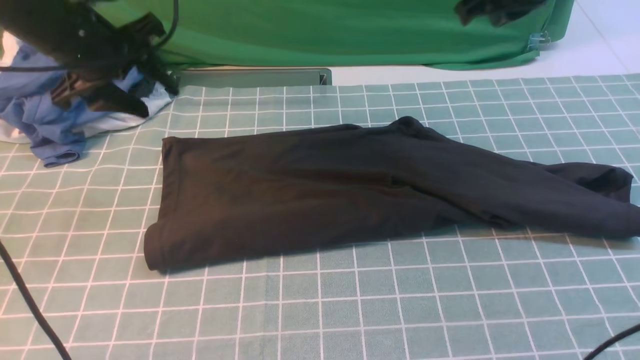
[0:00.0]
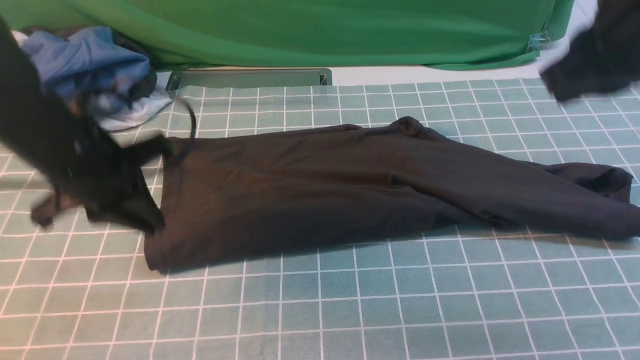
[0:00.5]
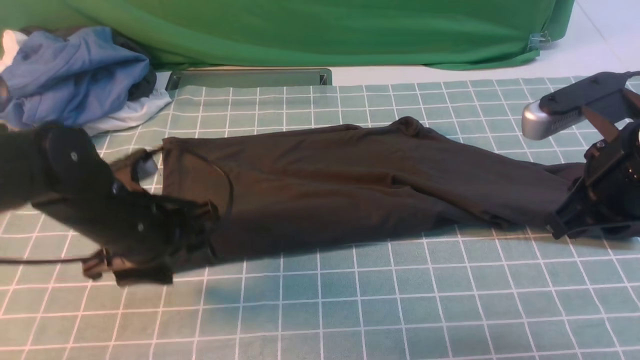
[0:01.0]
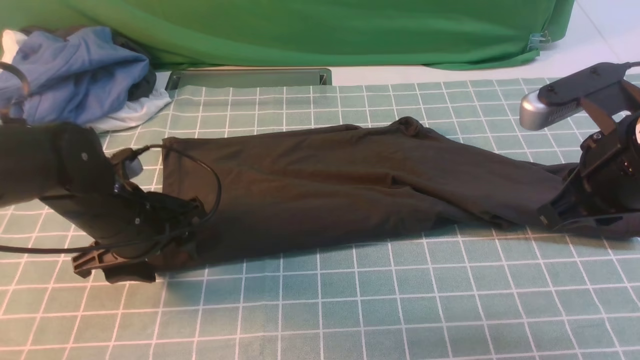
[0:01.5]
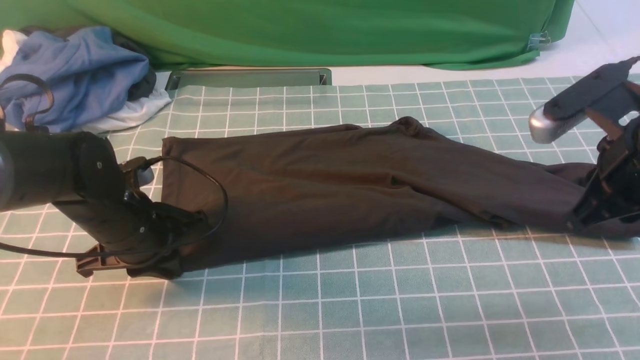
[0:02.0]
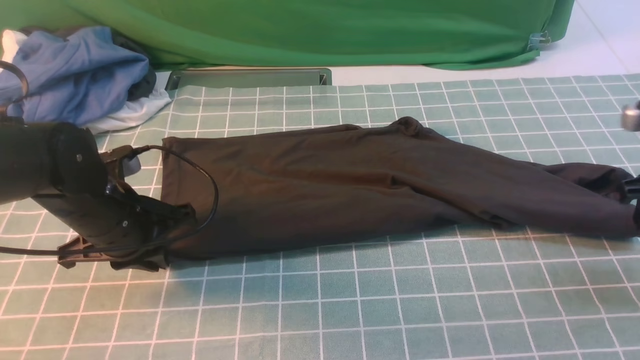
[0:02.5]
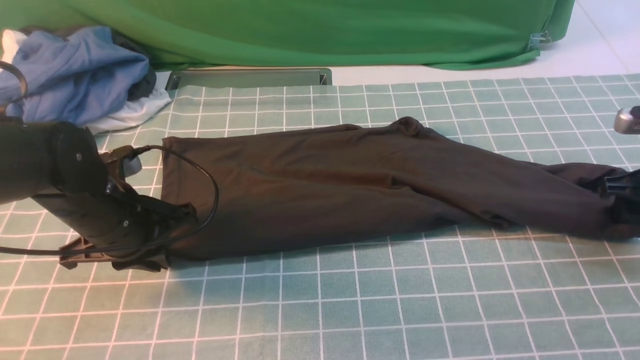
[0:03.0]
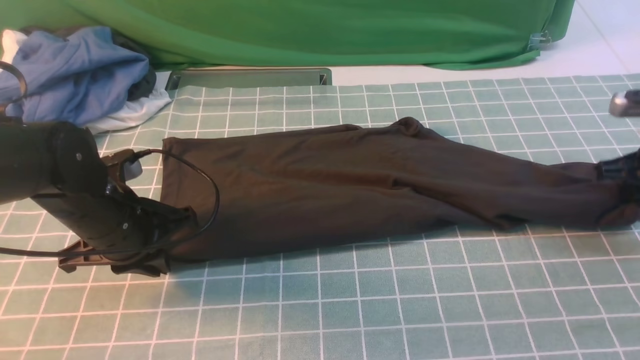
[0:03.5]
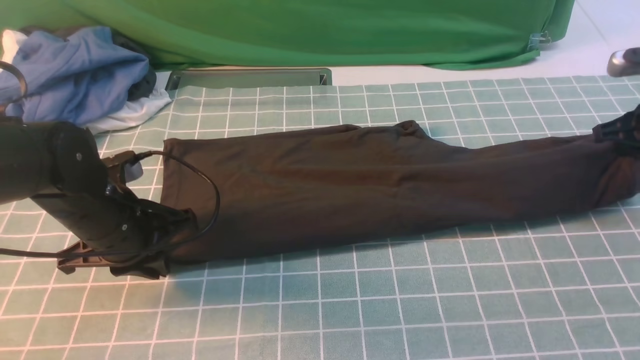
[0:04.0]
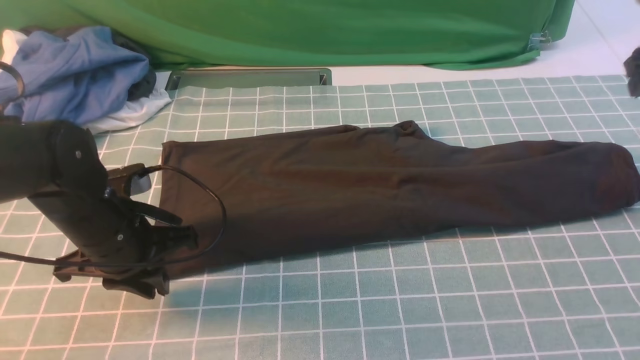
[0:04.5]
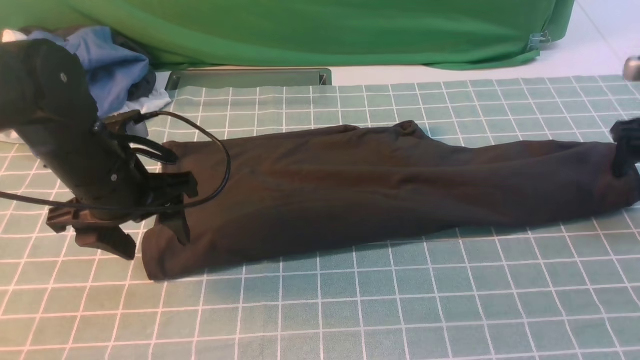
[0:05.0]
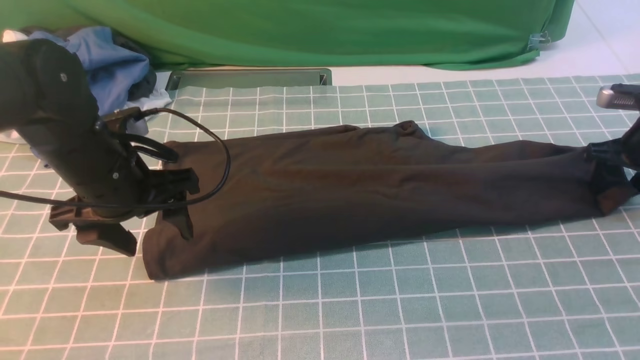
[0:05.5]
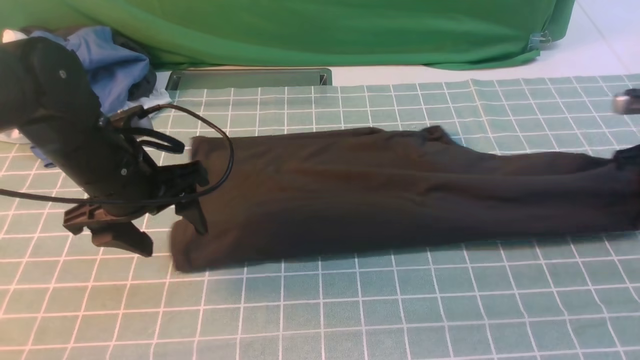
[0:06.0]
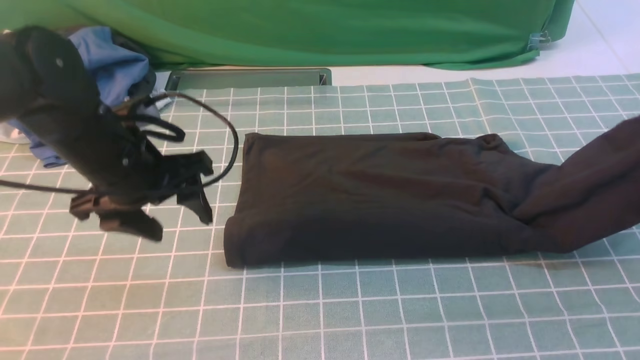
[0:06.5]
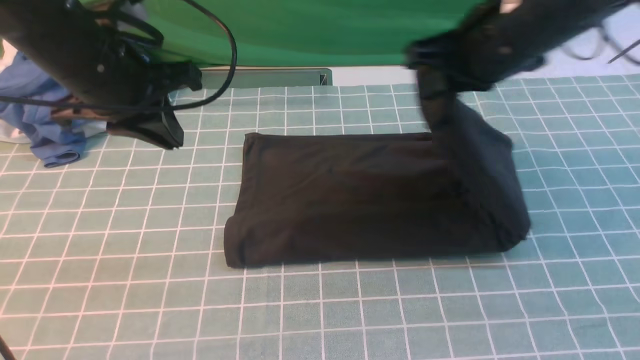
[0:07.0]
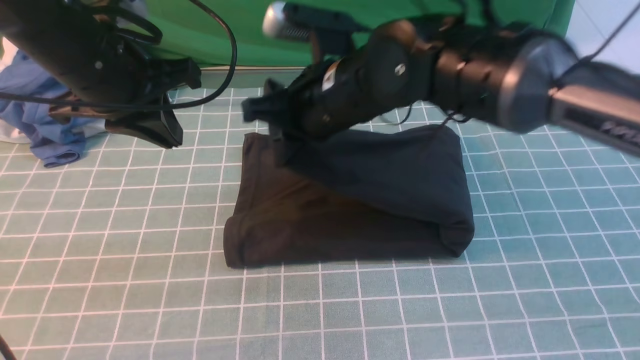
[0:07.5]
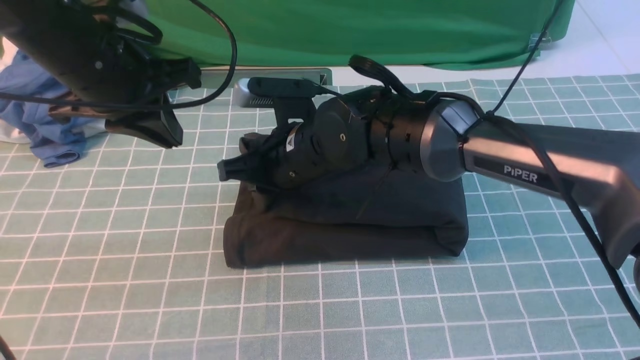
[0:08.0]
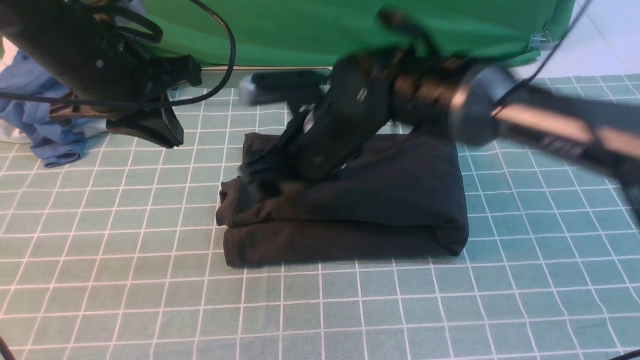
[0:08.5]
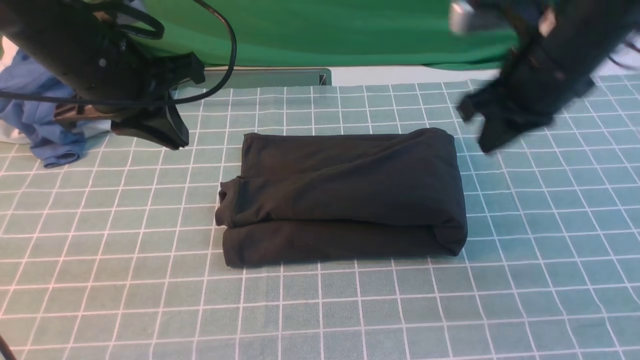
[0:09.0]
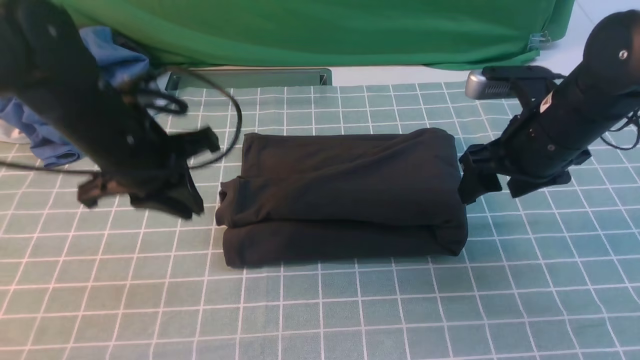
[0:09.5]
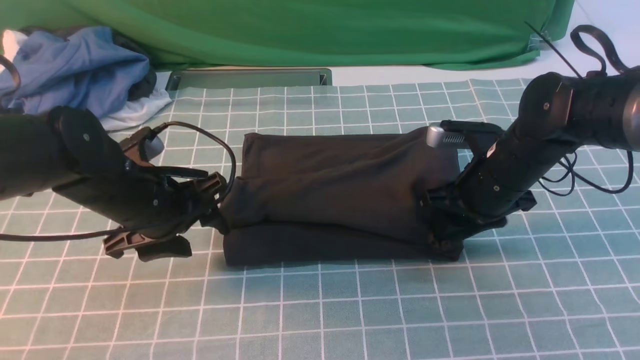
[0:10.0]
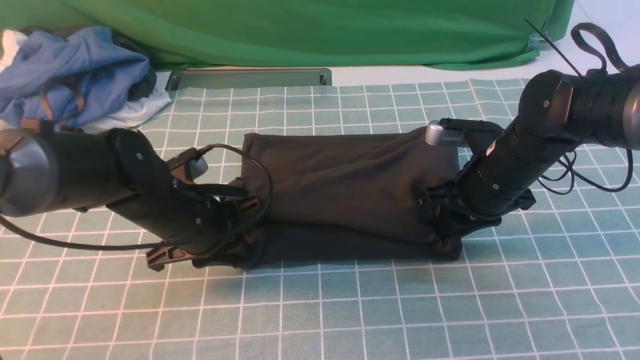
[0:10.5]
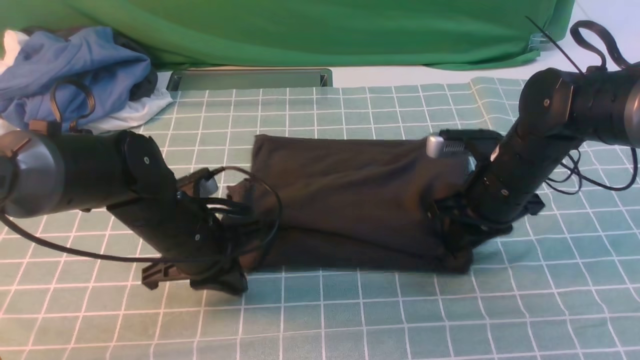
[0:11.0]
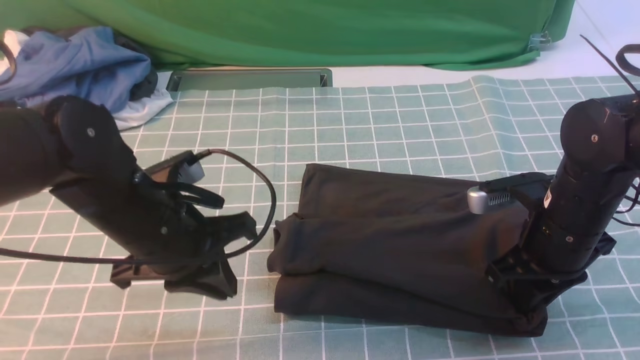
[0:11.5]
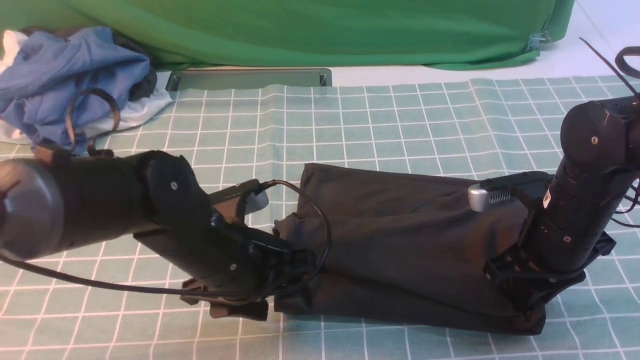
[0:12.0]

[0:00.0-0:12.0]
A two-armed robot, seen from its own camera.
Step, 0:00.0 to 0:06.0: use the right arm to clamp the right edge of the fabric.
Step, 0:06.5 to 0:08.5: use the right arm to drag the right edge of the fabric to the left and folds it over the left edge.
0:00.0 to 0:02.0: The left gripper heads downward and backward, covering roughly 15 cm, and closes its fingers; the right gripper goes about 20 cm backward, downward and to the right.
0:02.0 to 0:04.0: The right gripper moves to the right, forward and downward, about 20 cm, and opens, then closes again.
0:04.0 to 0:06.0: The right gripper goes up and down, approximately 10 cm each way, reversing 2 times, and opens, then closes again. The left gripper is displaced upward by some 5 cm, and opens.
0:06.0 to 0:08.0: The left gripper shifts some 10 cm upward, and closes up. The right gripper is displaced to the left by roughly 40 cm.
0:08.0 to 0:10.0: The left gripper moves downward, roughly 15 cm, and opens. Meanwhile the right gripper shifts about 20 cm to the right, and opens and closes again.
0:10.0 to 0:12.0: The left gripper is displaced to the right and backward by about 10 cm, and closes and opens again, while the right gripper heads backward, covering some 5 cm.

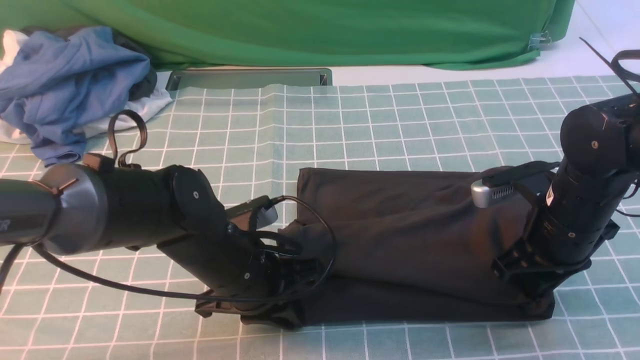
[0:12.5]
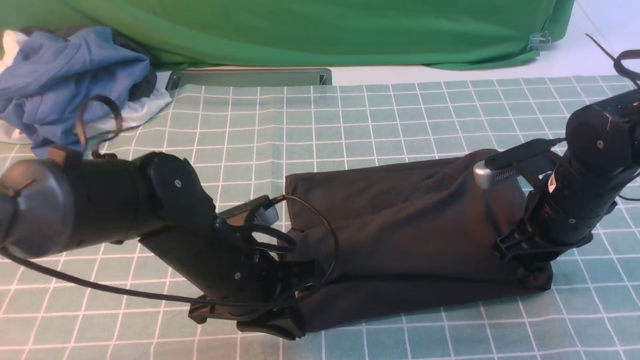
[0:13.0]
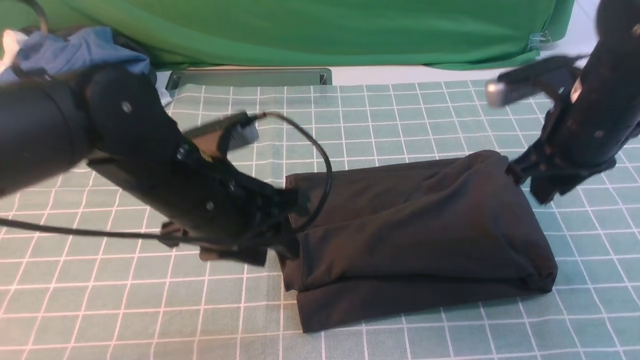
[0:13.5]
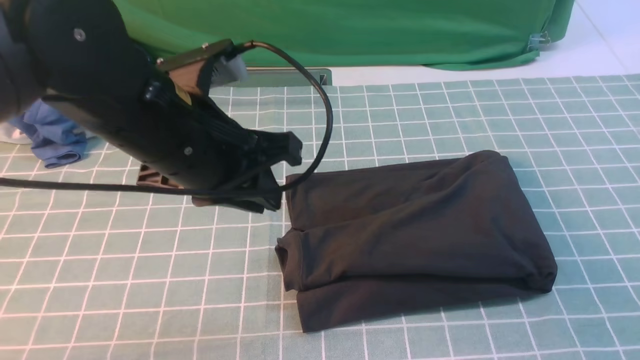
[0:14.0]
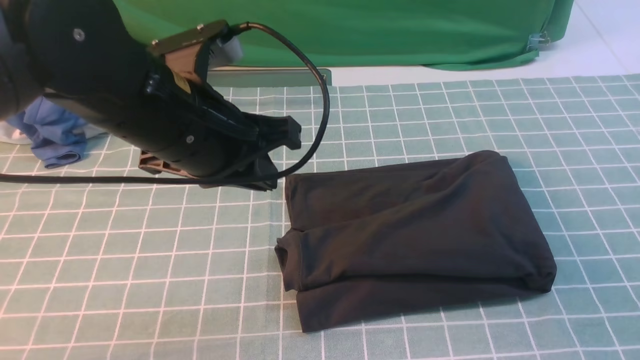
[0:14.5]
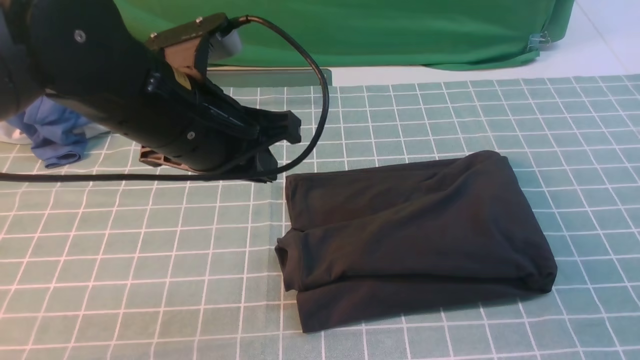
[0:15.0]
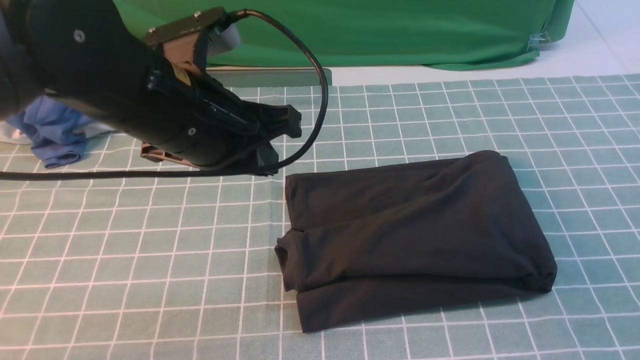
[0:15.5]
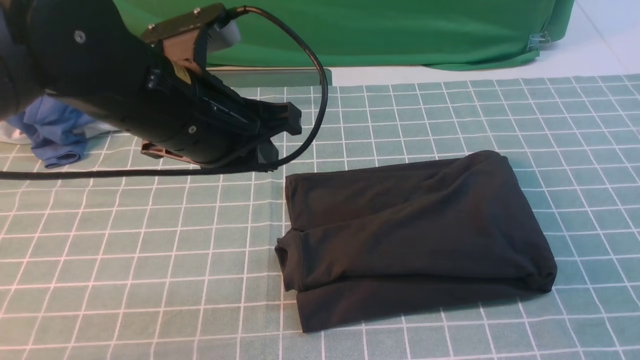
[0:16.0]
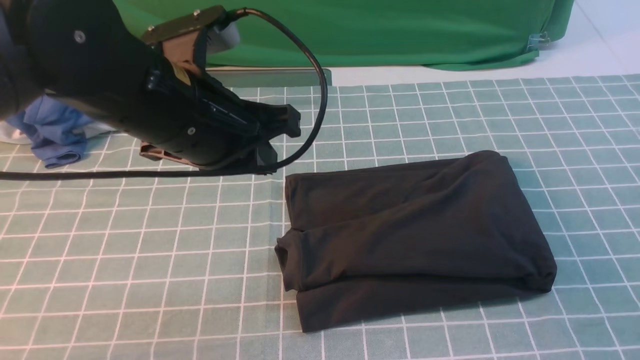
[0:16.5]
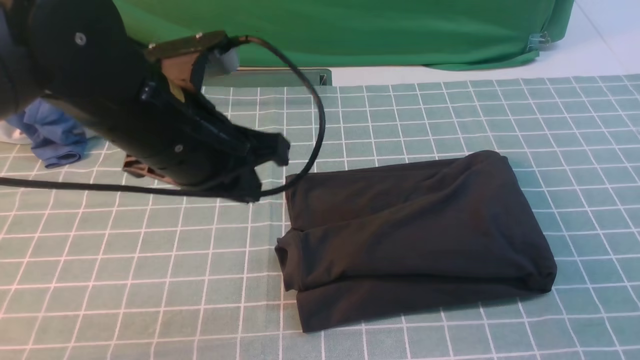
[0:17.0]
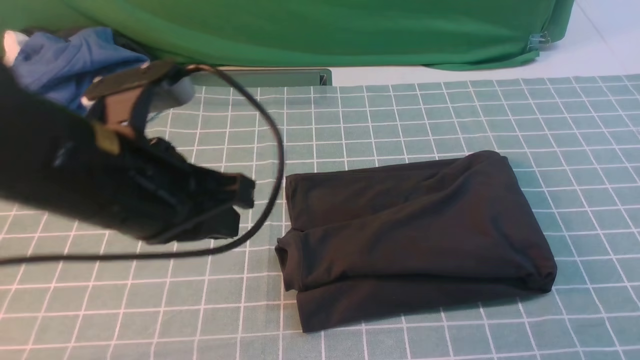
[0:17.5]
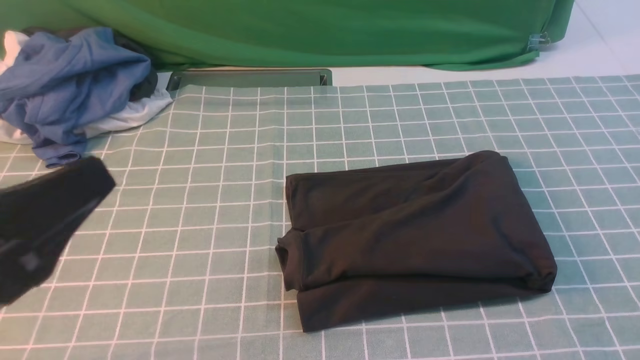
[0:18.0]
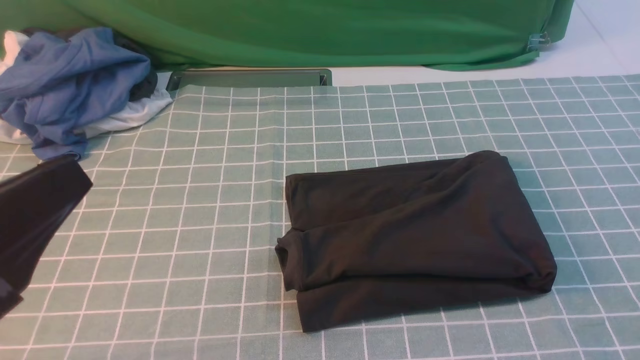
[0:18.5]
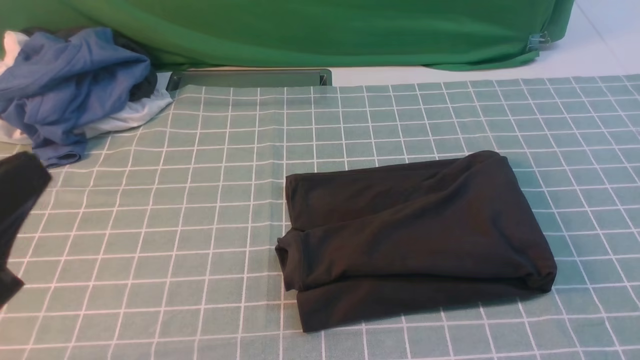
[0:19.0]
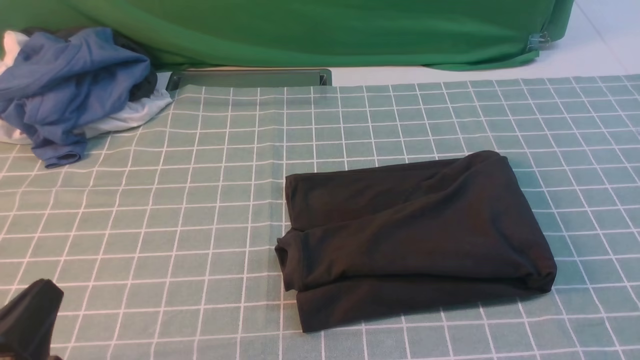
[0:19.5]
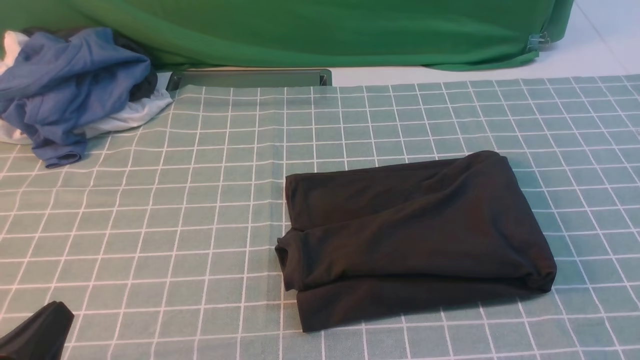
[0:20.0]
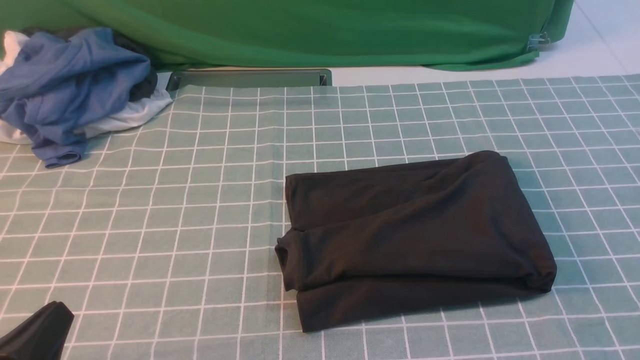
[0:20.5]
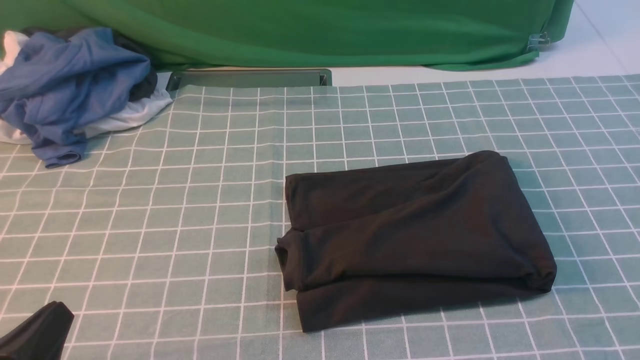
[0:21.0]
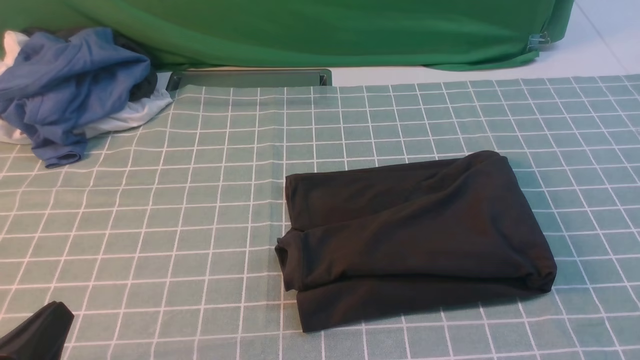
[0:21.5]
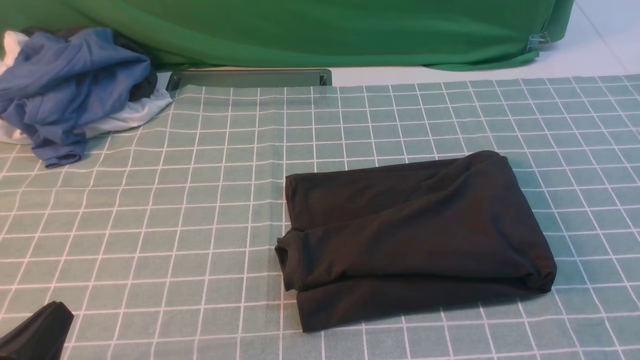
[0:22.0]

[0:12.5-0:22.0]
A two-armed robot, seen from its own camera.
0:12.5 to 0:14.5: The left gripper travels upward by roughly 15 cm; the right gripper shifts about 30 cm backward and upward.
0:14.5 to 0:16.5: The right gripper heads downward, covering approximately 20 cm.
0:16.5 to 0:18.0: The left gripper shifts roughly 20 cm backward and to the left.
0:18.0 to 0:20.0: The left gripper is displaced downward by some 15 cm.
0:20.0 to 0:22.0: Both grippers stay about where they are.
